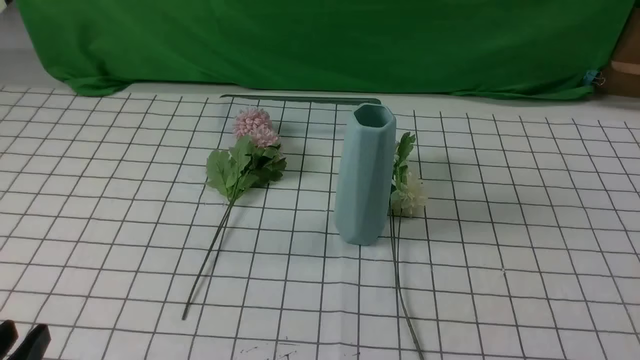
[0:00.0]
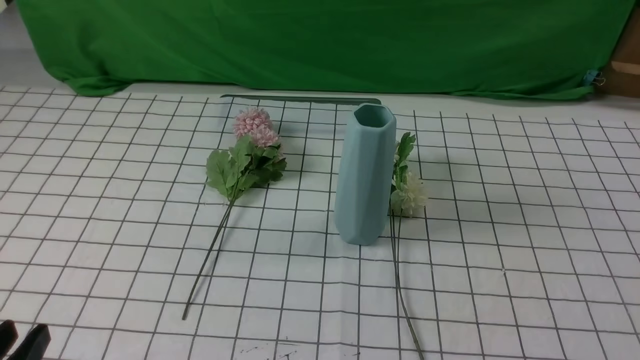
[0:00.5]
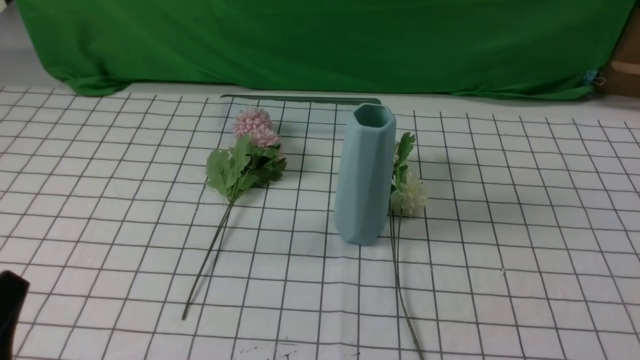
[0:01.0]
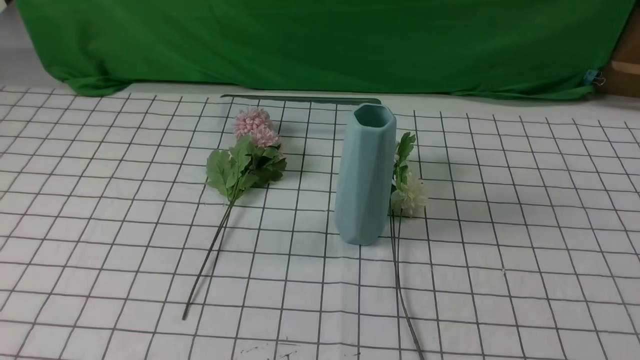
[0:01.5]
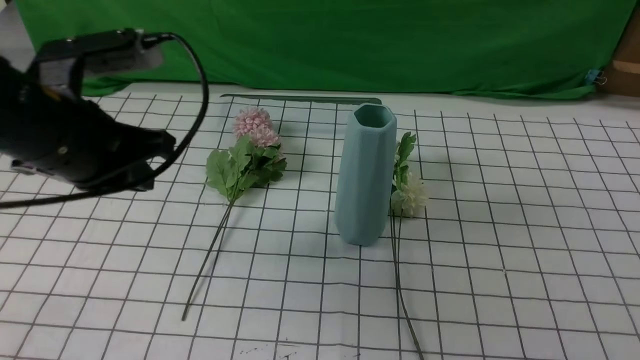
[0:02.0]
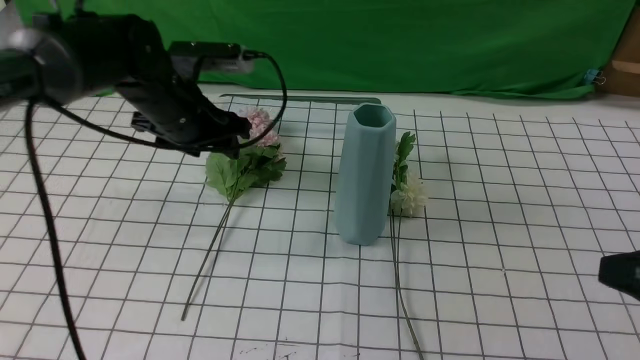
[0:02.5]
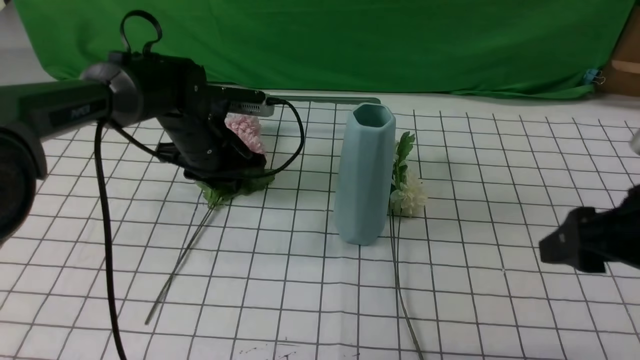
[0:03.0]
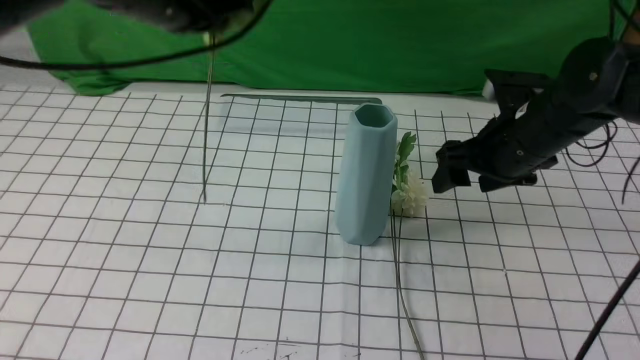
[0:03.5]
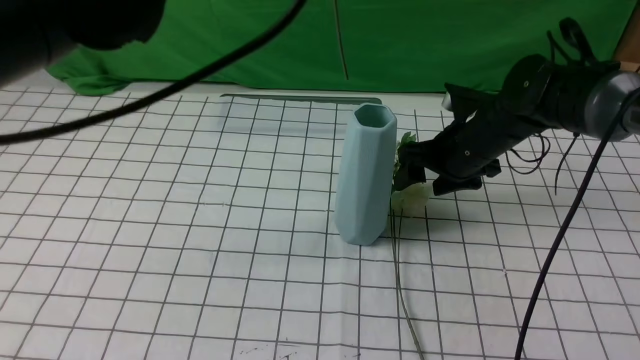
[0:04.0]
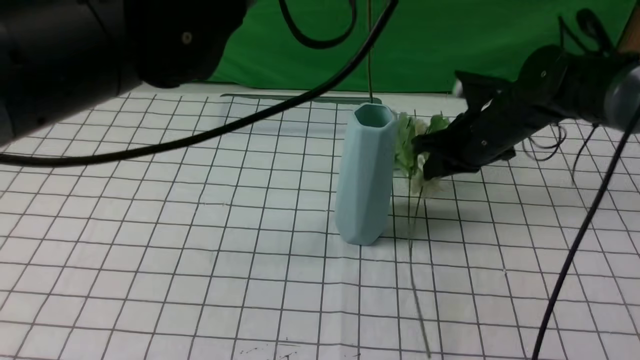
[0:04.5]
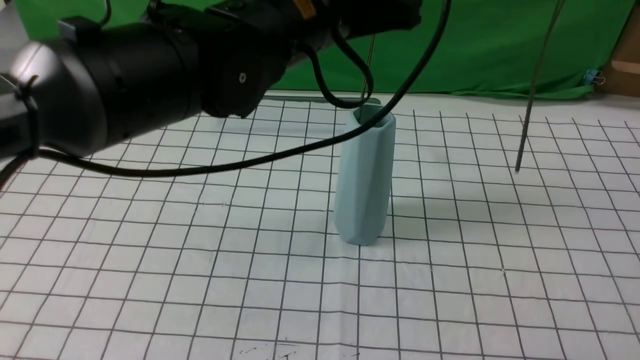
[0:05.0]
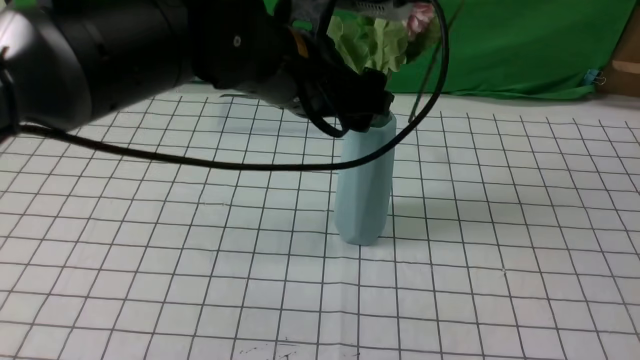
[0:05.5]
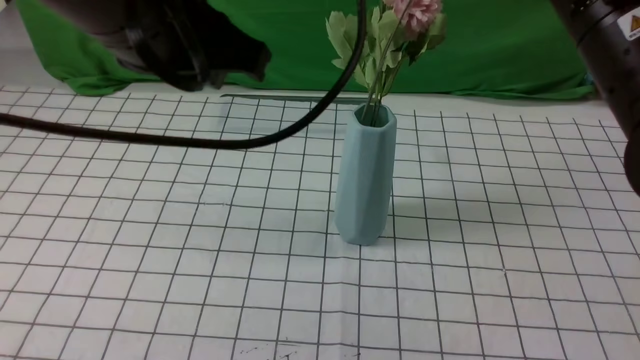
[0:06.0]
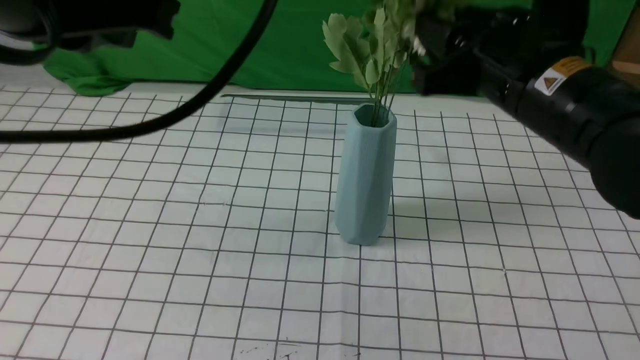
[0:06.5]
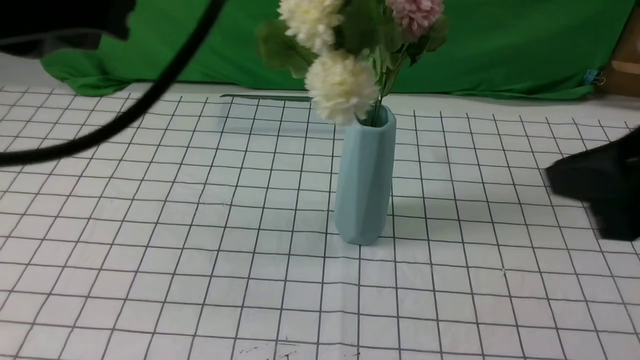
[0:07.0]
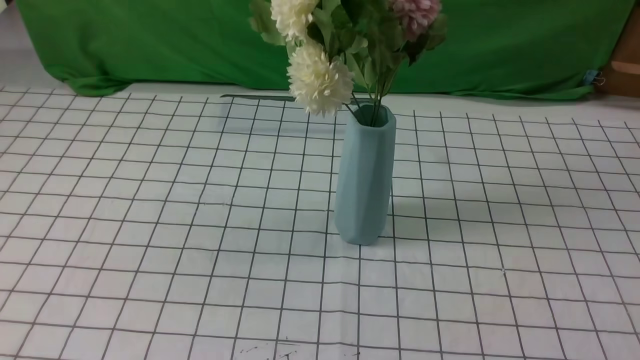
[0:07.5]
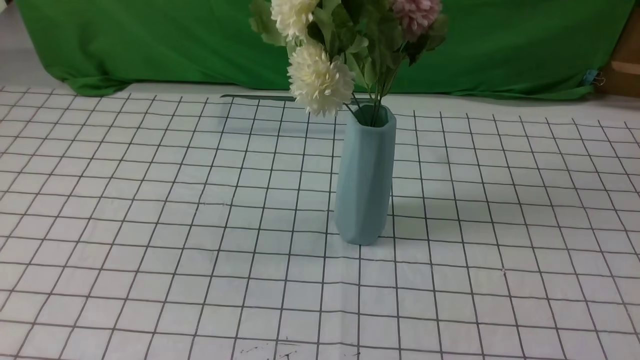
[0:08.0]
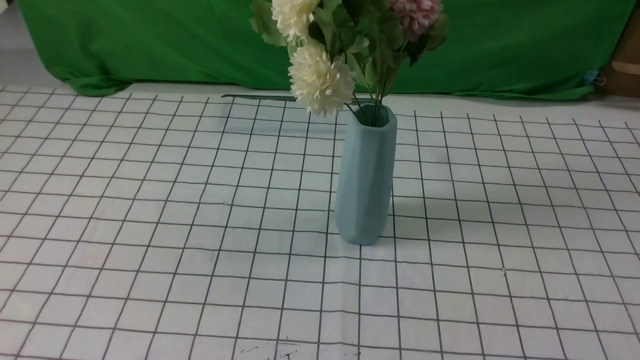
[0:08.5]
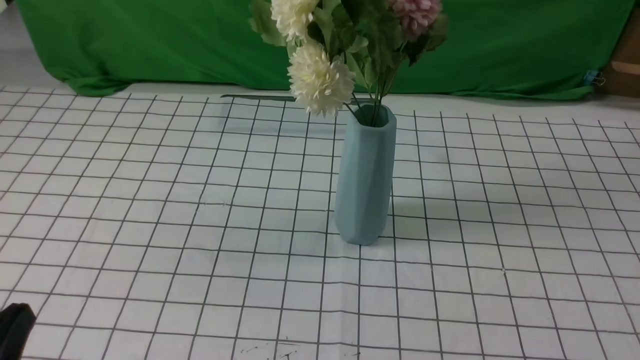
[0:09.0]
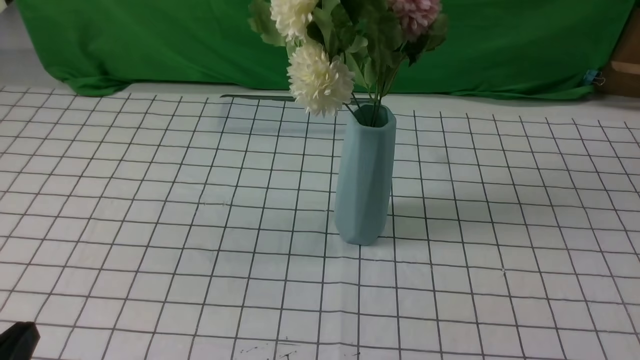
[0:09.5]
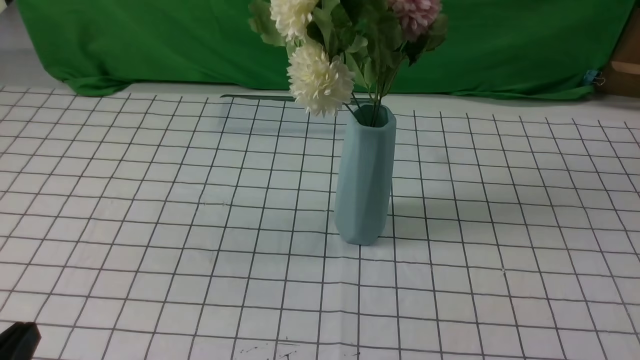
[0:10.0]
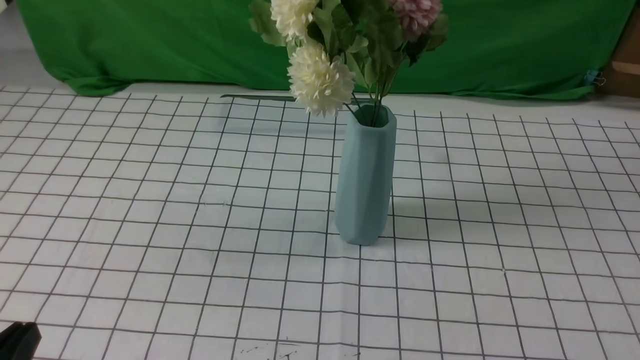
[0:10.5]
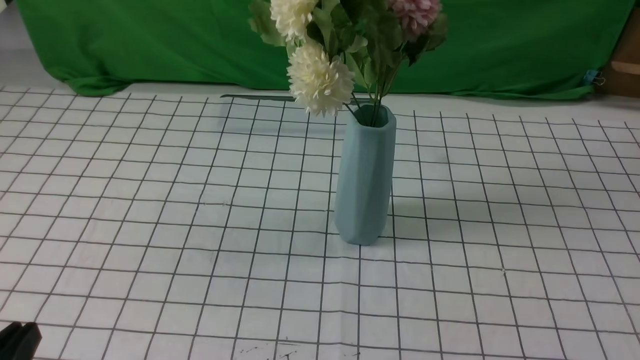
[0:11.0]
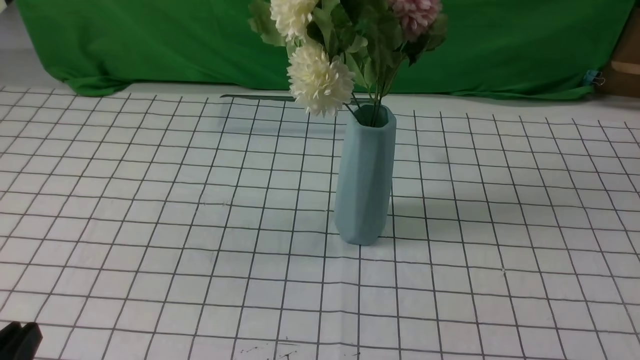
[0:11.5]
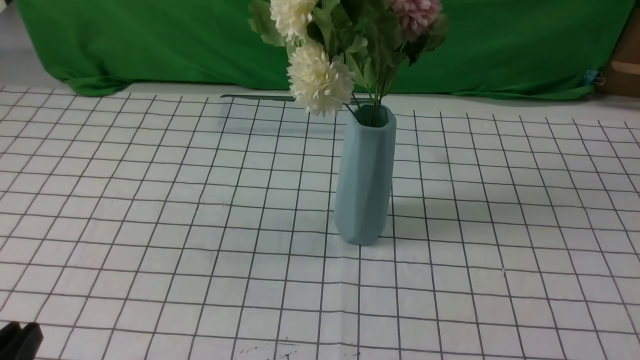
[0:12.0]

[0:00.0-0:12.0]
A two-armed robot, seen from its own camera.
Task of the whole recording: insert the flowers into the vase on the table with the white tablecloth.
Step, 0:00.0 to 0:06.5: Put the flowers in the vase with both hands.
0:00.0 to 0:02.0: The right gripper moves upward, approximately 5 cm; the left gripper is displaced forward and upward by approximately 25 cm, and closes its fingers.
0:02.0 to 0:04.0: The right gripper is displaced forward by about 35 cm, and opens up. Meanwhile the left gripper is displaced upward and to the right by about 20 cm, and opens and closes again.
0:04.0 to 0:06.0: The right gripper goes about 25 cm upward and backward, and closes its fingers. Meanwhile the left gripper heads backward, covering roughly 5 cm, reaches roughly 10 cm downward, then returns, and opens and closes again.
0:06.0 to 0:08.0: The right gripper is displaced backward and to the right by roughly 30 cm, and opens, then closes once more. The left gripper shifts roughly 25 cm backward and to the left.
